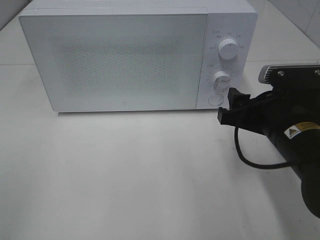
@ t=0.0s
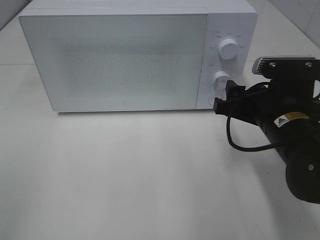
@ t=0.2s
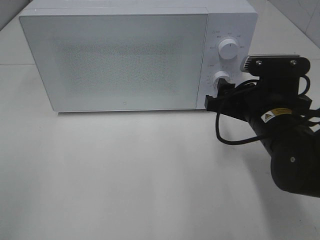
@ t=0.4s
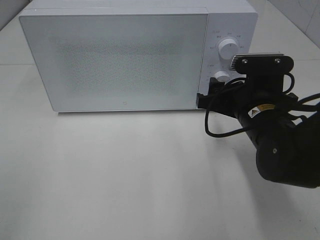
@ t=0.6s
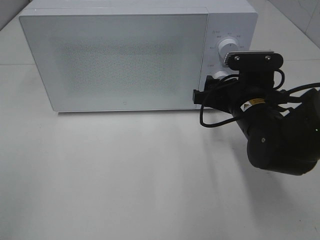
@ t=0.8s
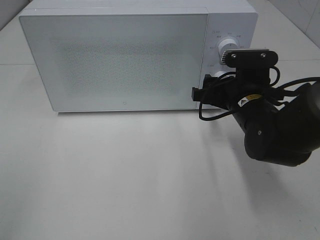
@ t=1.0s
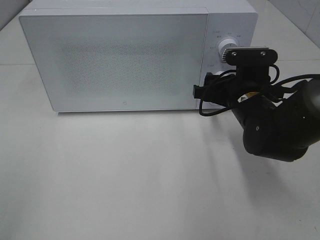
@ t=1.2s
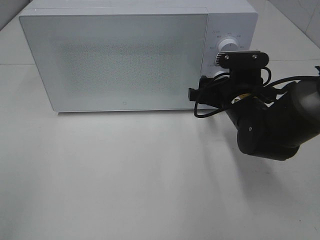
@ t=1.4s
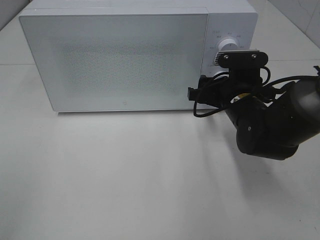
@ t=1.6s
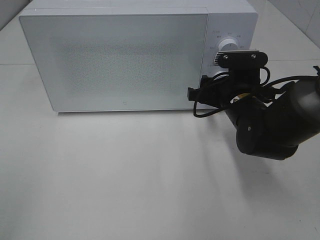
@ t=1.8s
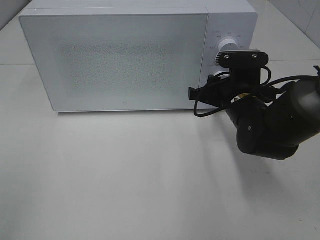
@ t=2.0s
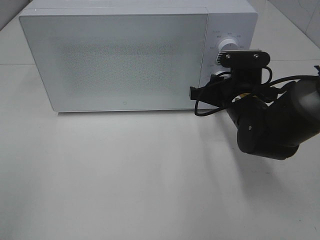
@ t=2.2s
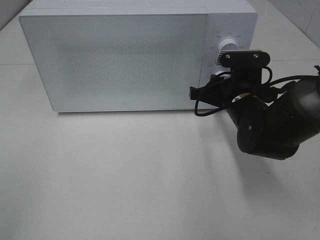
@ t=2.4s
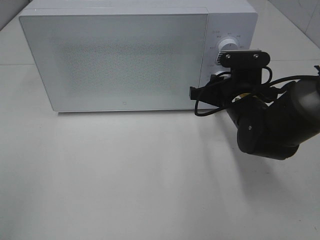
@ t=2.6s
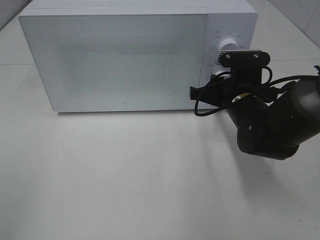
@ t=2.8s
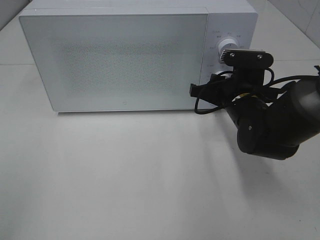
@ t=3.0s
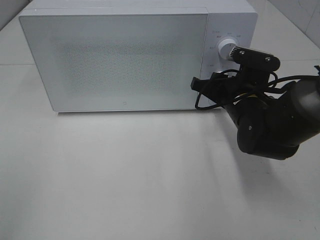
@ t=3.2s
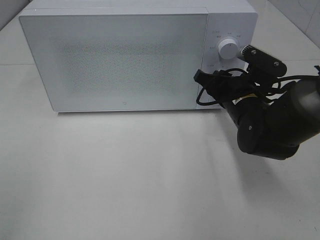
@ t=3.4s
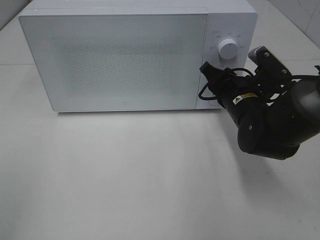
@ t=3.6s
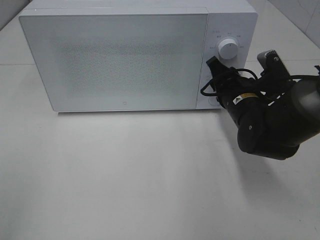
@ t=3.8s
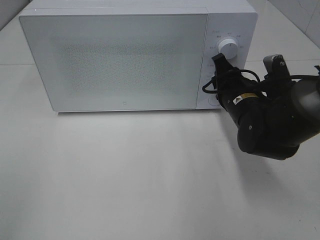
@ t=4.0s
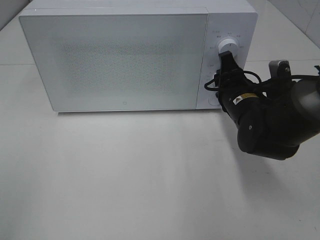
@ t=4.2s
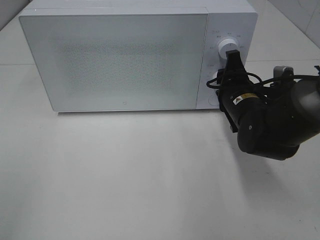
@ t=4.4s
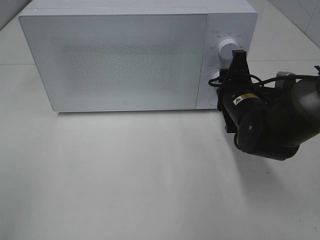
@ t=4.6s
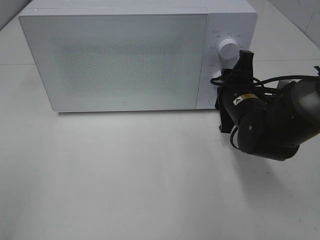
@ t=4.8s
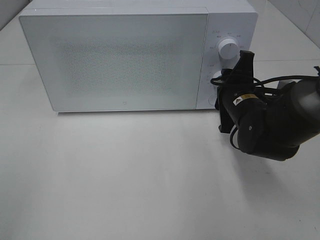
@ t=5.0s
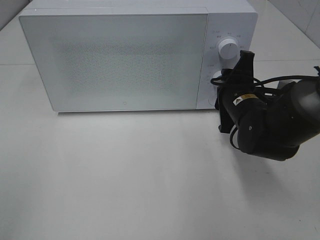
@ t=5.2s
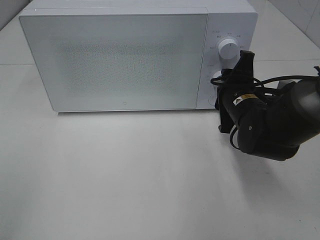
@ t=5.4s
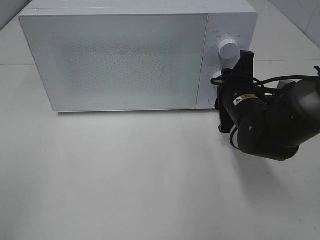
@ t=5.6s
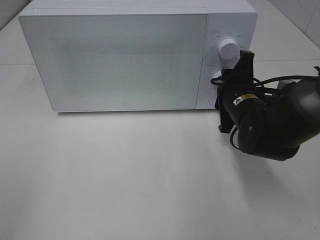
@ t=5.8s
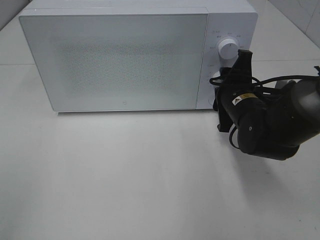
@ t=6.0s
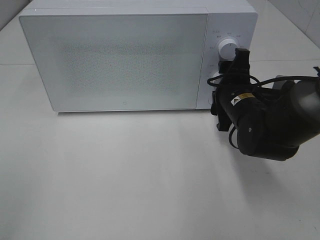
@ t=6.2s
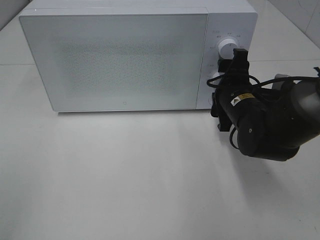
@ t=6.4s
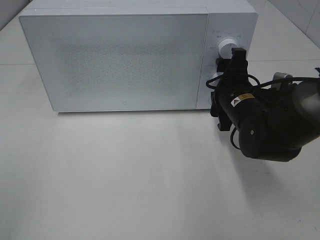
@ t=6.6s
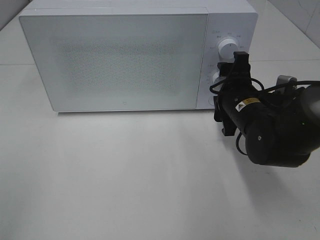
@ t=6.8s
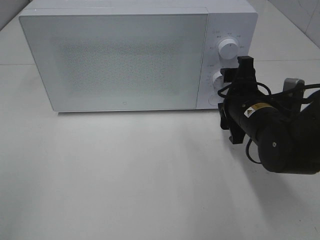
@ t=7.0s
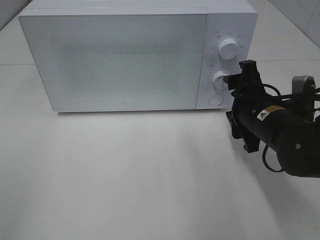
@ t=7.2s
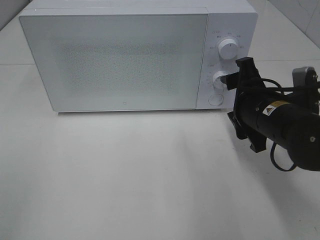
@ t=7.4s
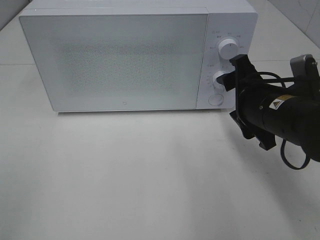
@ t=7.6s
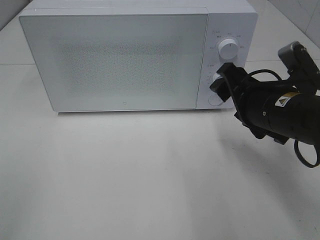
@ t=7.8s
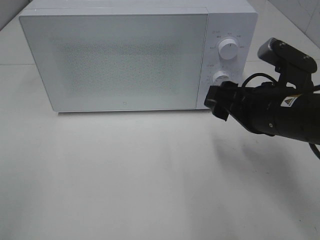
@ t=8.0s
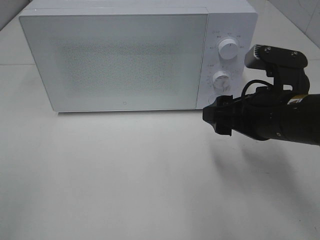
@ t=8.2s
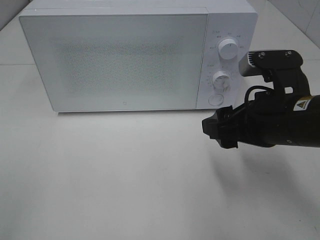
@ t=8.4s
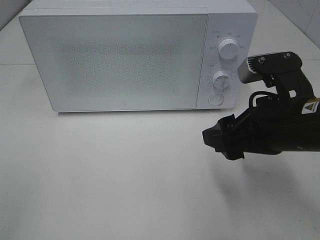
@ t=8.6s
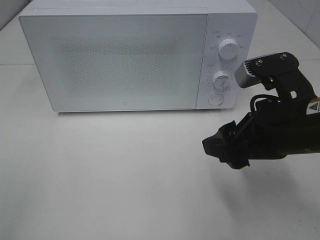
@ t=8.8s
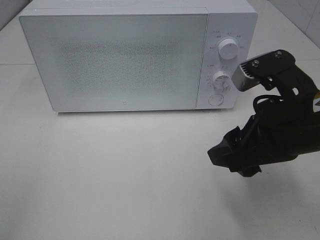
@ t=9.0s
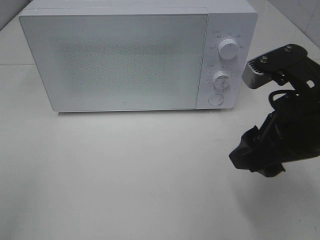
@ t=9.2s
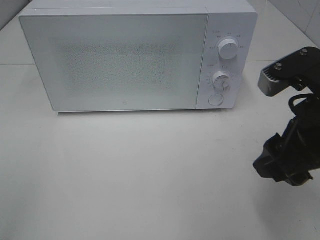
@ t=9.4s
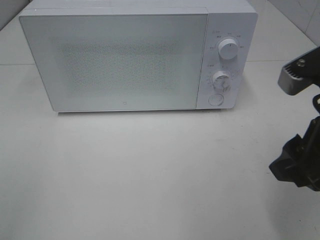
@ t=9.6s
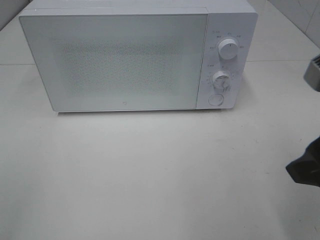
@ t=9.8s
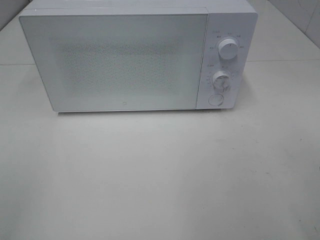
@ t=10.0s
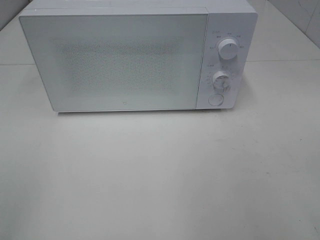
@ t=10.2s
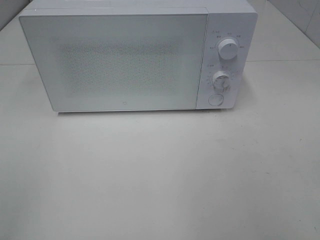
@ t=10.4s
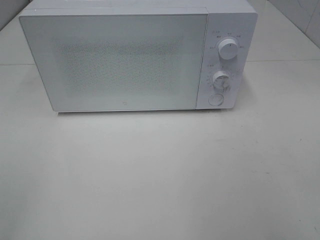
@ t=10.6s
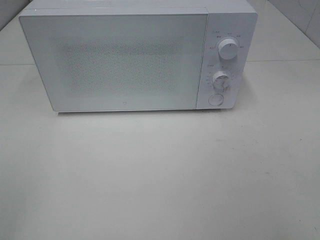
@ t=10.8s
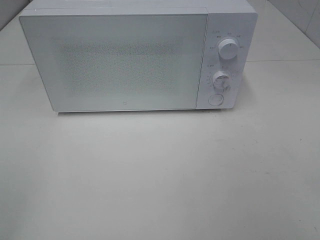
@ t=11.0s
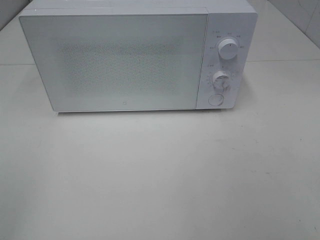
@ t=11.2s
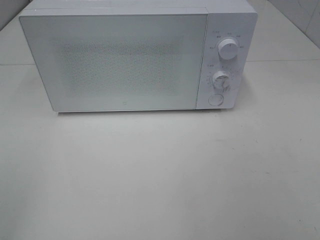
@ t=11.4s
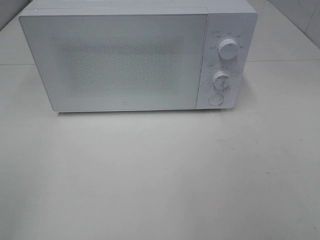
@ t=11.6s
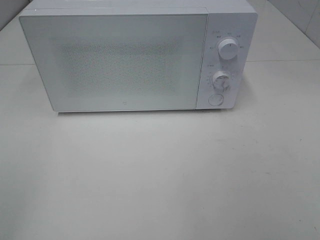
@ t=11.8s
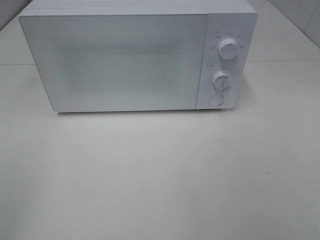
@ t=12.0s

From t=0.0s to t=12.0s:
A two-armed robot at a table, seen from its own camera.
Task of the whole recording: Heat Sandwich.
Step, from t=0.0s to t=7.0s: Right hand: twist timer button.
From t=0.0s to t=1.6s: The right gripper is displaced forward by approximately 10 cm.
From t=1.6s to t=3.0s: The right gripper closes its fingers.
From t=4.4s to t=6.0s: The grippers make only small movements.
From t=6.0s to t=7.6s: The right gripper shifts some 5 cm backward.
From t=7.6s to t=9.0s: The right gripper is displaced backward and upward by about 10 cm.
From t=9.0s to t=10.4s: The right gripper shifts approximately 20 cm backward, to the right and upward.

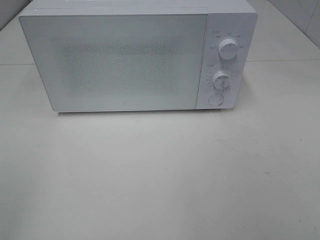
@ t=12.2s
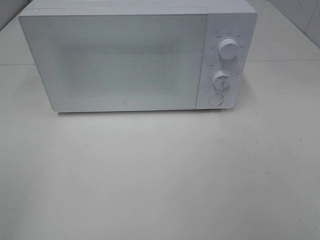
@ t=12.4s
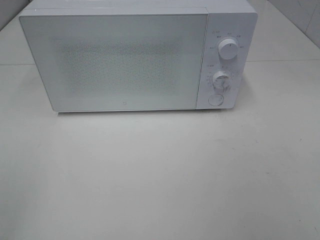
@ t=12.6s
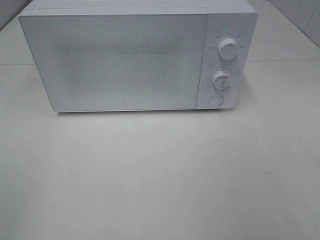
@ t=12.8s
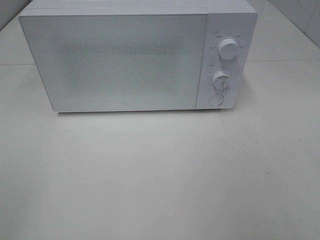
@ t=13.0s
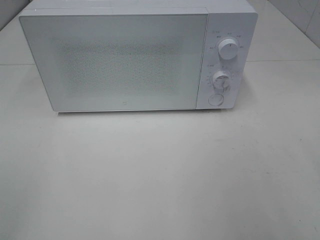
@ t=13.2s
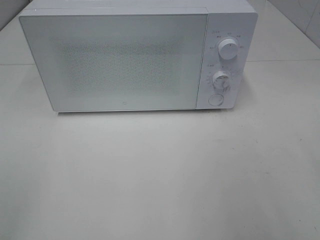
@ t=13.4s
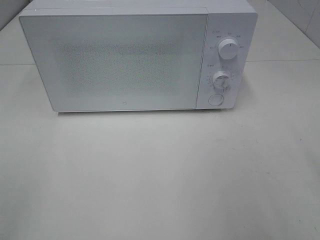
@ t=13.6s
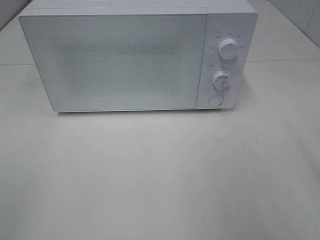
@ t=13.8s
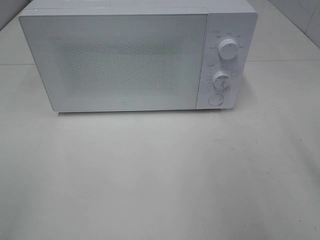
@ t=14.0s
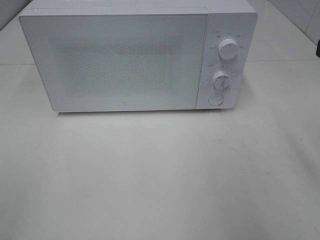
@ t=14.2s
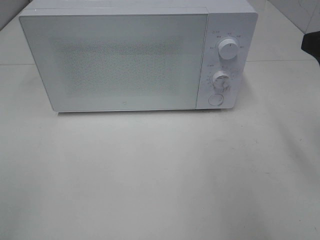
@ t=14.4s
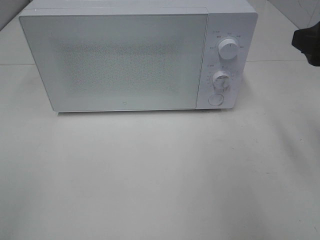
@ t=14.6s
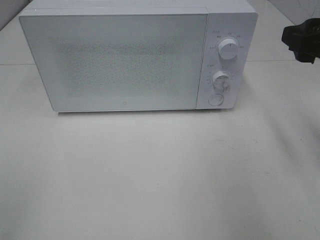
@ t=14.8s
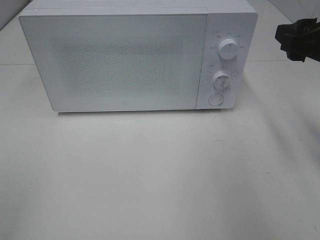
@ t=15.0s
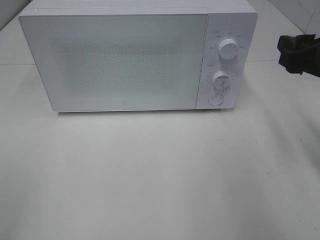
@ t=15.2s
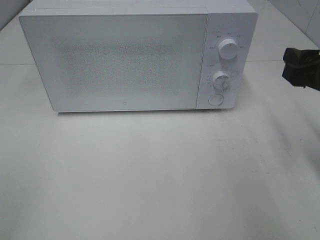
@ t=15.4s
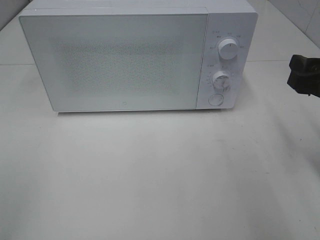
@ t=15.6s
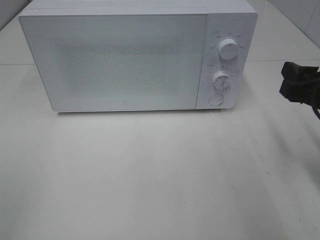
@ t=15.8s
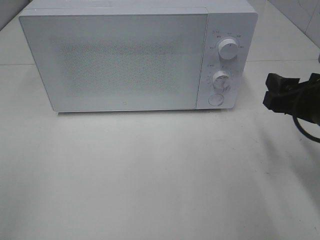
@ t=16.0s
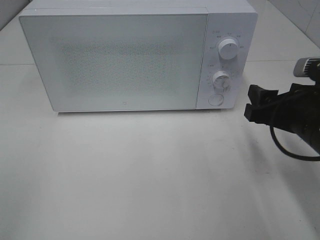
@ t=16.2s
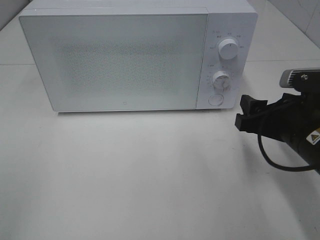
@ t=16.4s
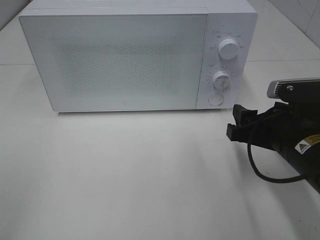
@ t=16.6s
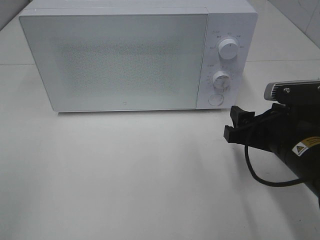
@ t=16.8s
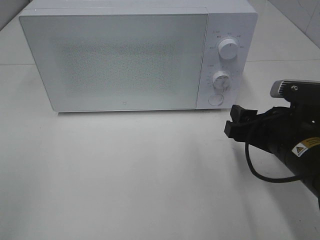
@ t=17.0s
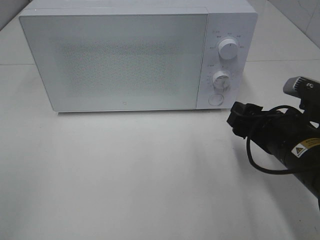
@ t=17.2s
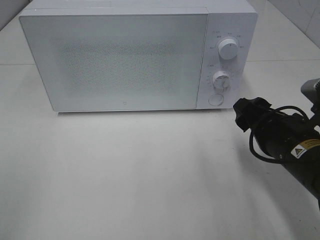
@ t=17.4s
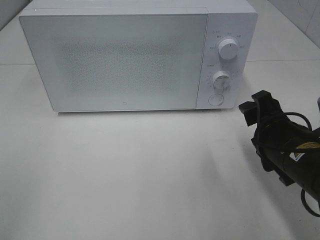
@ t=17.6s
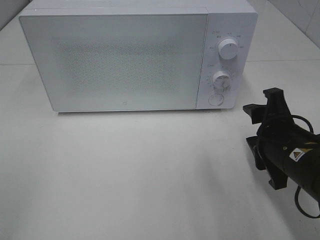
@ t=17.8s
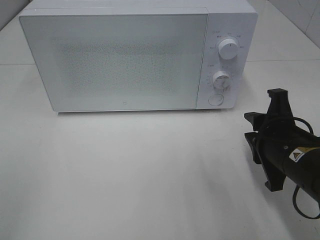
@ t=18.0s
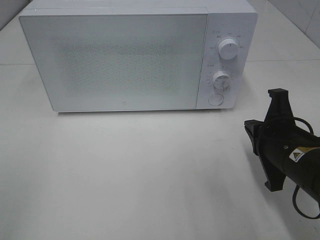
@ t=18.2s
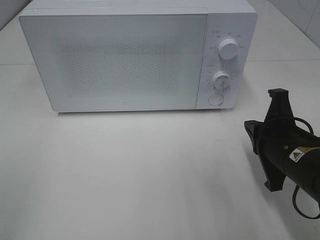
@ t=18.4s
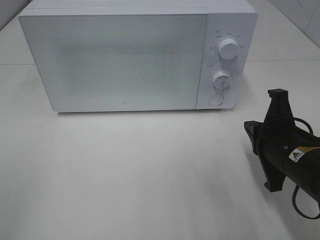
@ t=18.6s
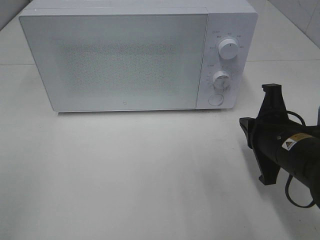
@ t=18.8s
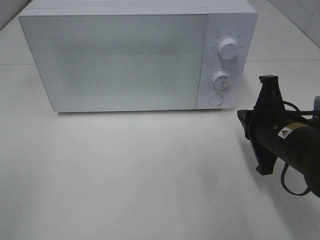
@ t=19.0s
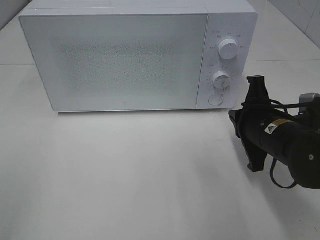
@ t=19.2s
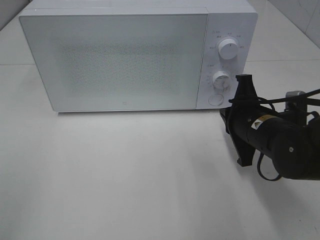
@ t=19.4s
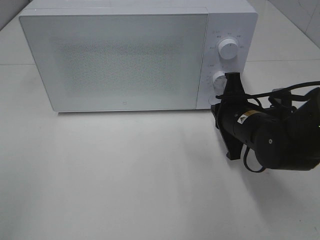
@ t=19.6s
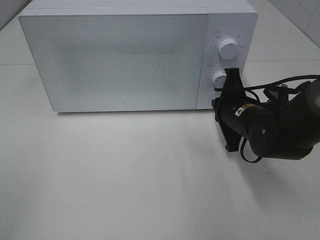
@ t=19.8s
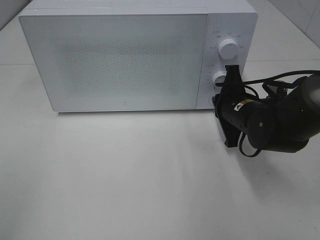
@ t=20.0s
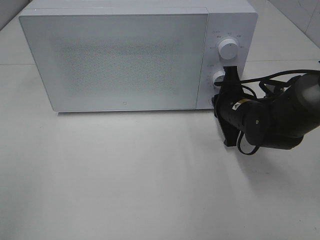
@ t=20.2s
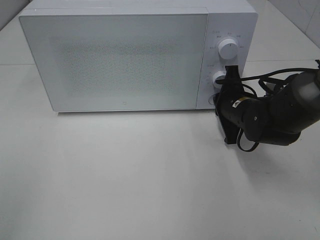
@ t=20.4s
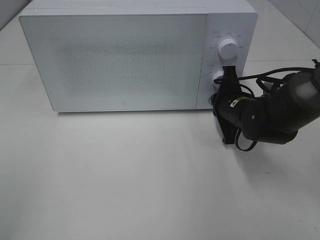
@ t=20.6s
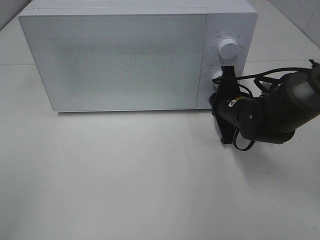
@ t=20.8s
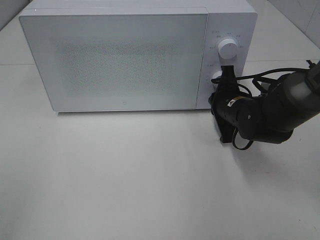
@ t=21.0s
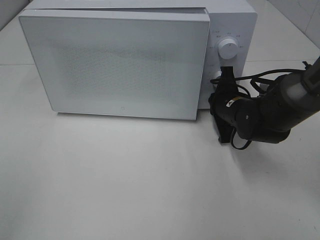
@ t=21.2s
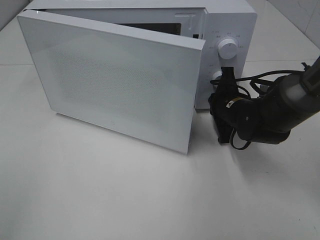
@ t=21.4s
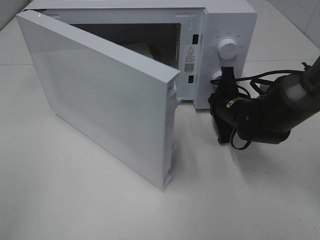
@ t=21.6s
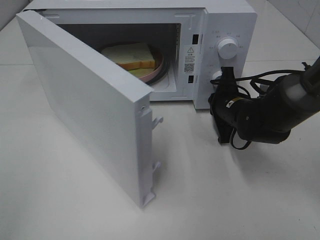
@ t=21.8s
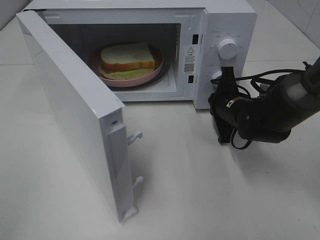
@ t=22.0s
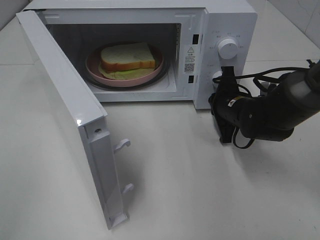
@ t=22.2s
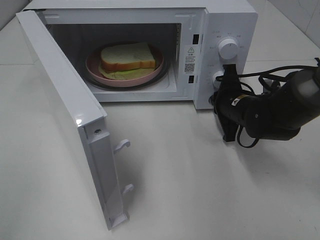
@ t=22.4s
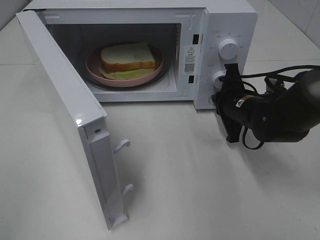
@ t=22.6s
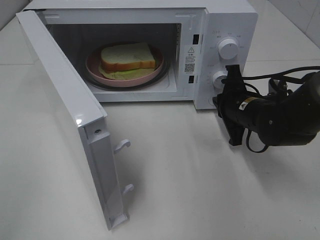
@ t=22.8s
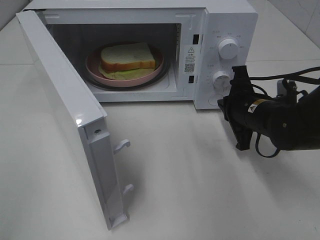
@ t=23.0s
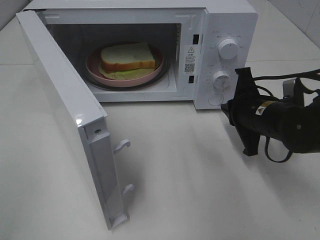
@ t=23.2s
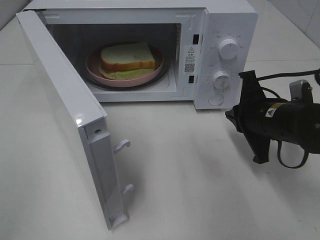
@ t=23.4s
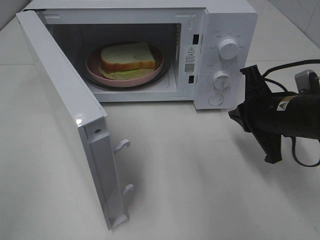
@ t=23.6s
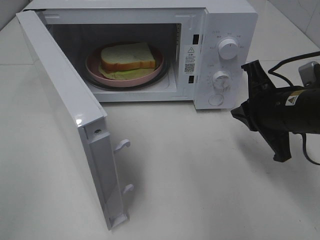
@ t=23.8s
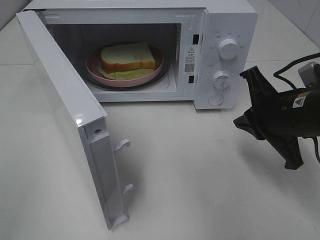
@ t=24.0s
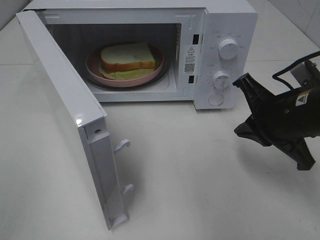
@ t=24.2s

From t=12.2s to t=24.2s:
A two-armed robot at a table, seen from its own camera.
Task of the whole recording: Heat Sandwich.
Step, from t=12.2s to t=23.2s: Right hand: press the switch.
From t=13.8s to t=15.2s: The right gripper moves forward and downward, about 15 cm.
From t=15.2s to t=16.6s: The right gripper heads downward and to the left, covering roughly 10 cm.
From t=16.6s to t=18.2s: The right gripper closes its fingers.
From t=18.2s to t=19.8s: The right gripper travels forward by approximately 10 cm.
From t=19.8s to t=21.2s: The right gripper goes roughly 5 cm forward.
From t=22.6s to t=24.2s: The right gripper moves backward and upward, about 15 cm.
